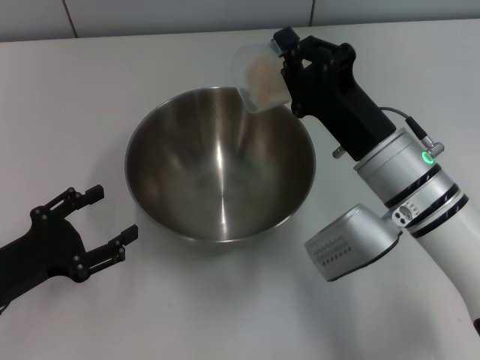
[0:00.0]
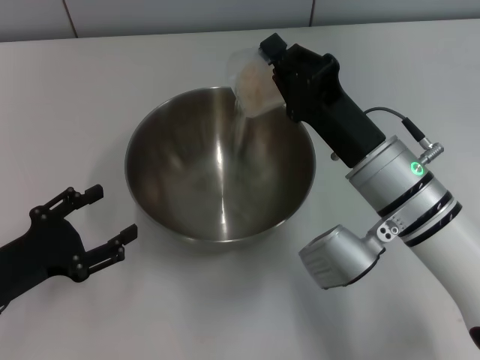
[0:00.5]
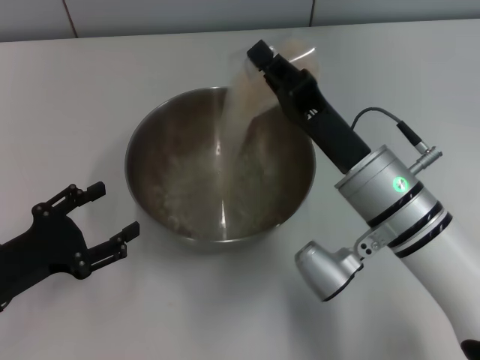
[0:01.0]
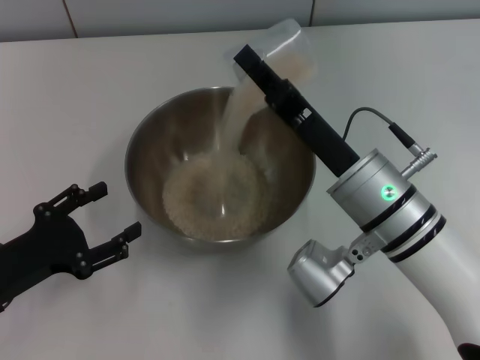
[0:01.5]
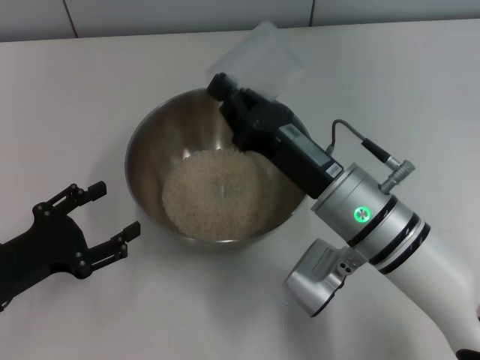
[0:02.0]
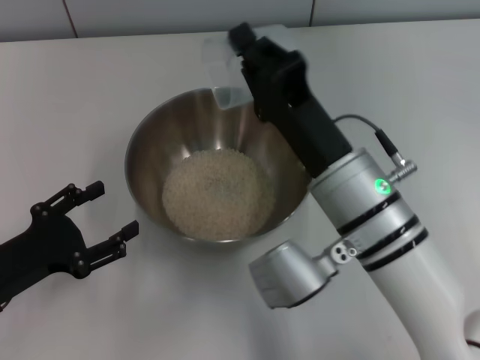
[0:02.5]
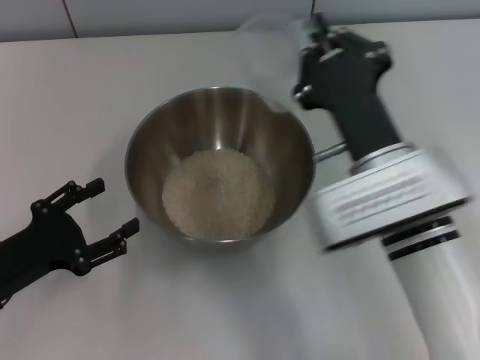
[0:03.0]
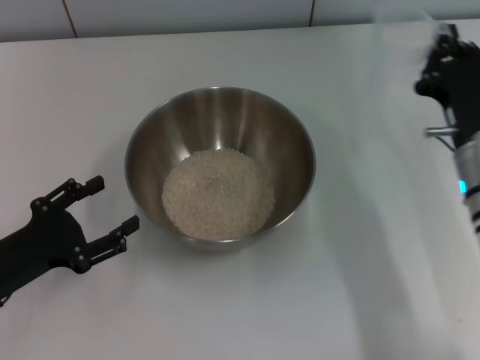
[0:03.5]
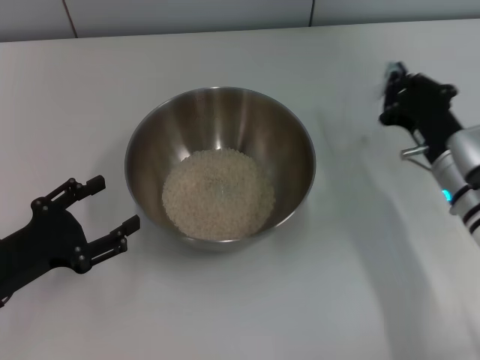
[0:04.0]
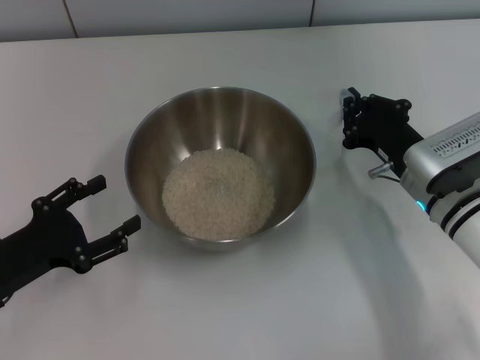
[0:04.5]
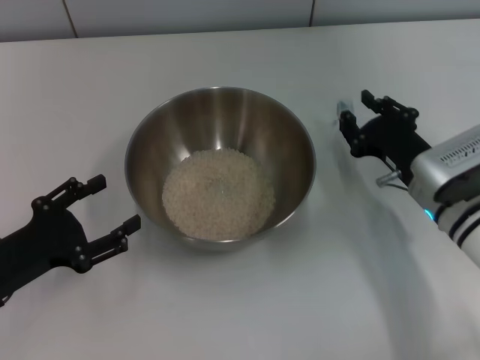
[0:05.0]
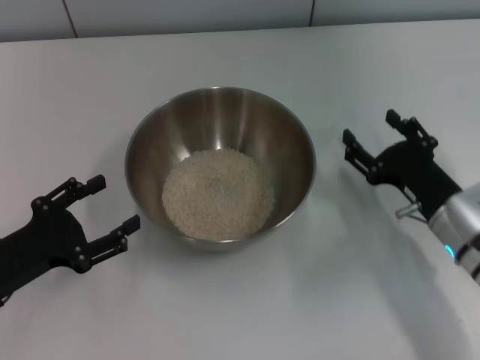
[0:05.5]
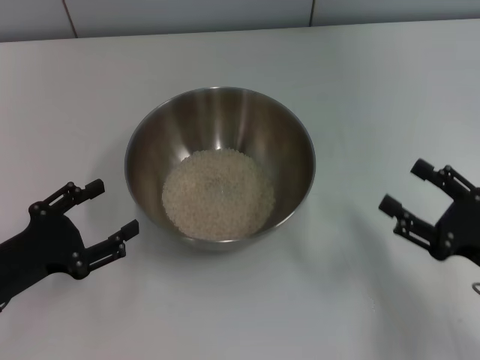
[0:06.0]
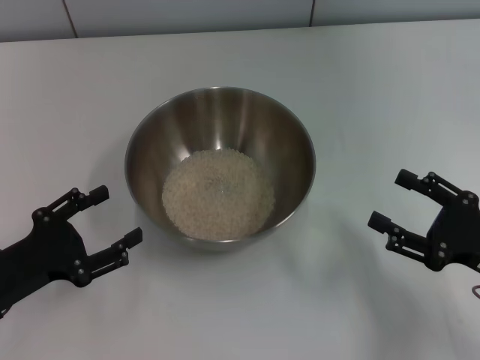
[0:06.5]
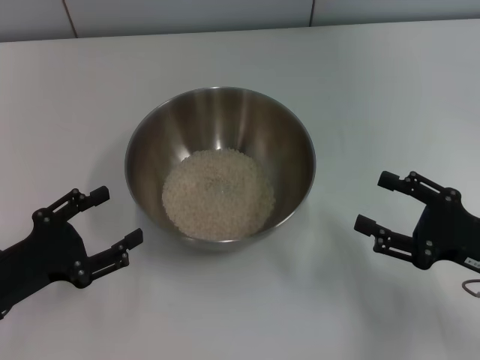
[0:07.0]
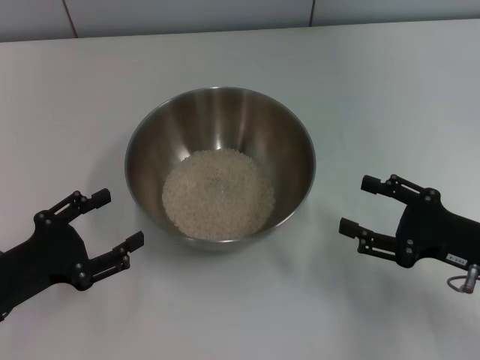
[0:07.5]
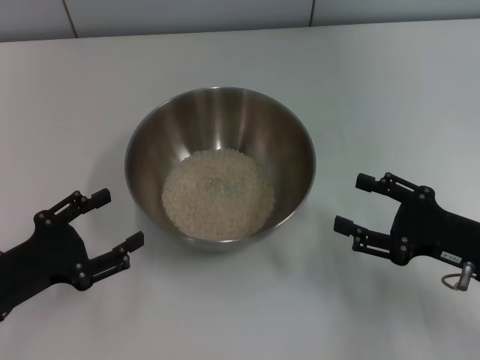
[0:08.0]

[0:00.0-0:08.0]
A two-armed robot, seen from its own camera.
Task of the whole recording: Place the bowl in the middle of the table with one hand and pour the rice from the grain cup into it with the other hand.
Step, 0:00.0 to 0:02.0: Pour the rice from the cup into the bowl with the right gripper.
Step, 0:02.5 to 0:05.0: Place the cup on the table with the right gripper.
0:02.0 to 0:04.0: The right gripper is displaced to the right by about 10 cm.
0:04.0 to 0:06.0: The right gripper shifts roughly 15 cm backward and to the right, and opens up.
0:06.0 to 0:08.0: The grippers make only small movements.
